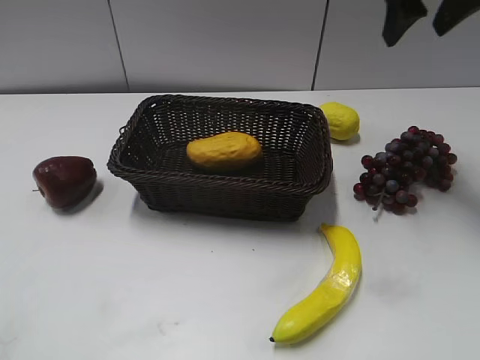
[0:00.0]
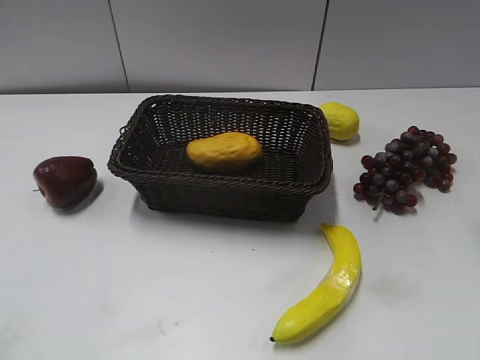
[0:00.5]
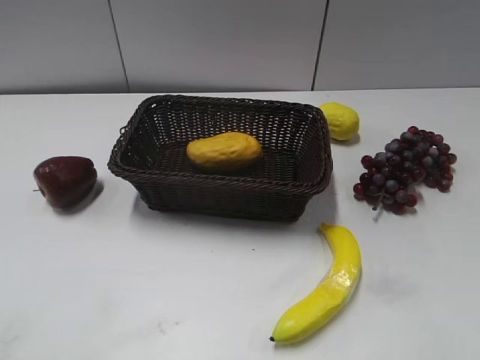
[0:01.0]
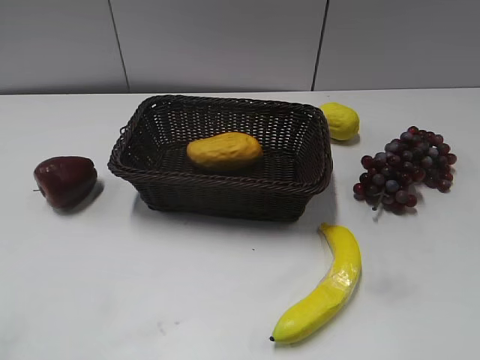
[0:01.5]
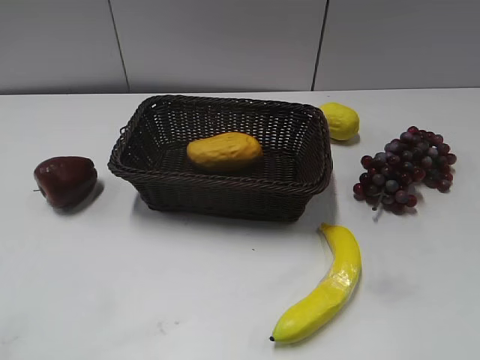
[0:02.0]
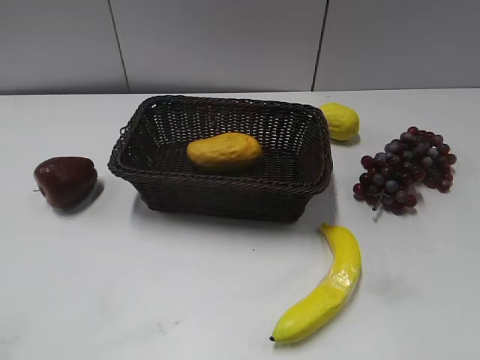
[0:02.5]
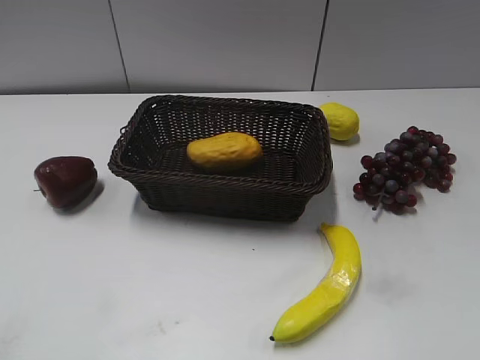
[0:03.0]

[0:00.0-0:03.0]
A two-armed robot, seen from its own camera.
0:00.0 to 0:01.5: The right gripper moves backward, some 35 cm.
